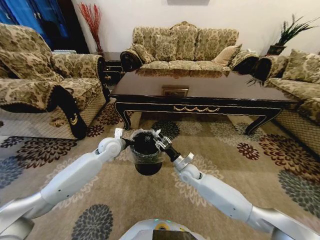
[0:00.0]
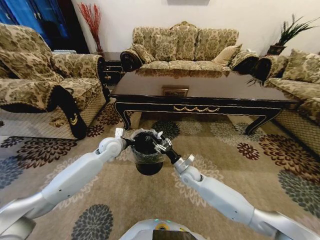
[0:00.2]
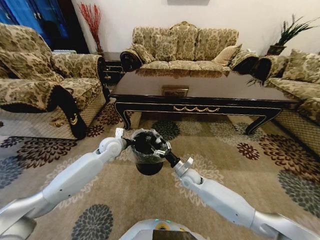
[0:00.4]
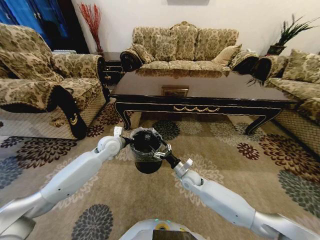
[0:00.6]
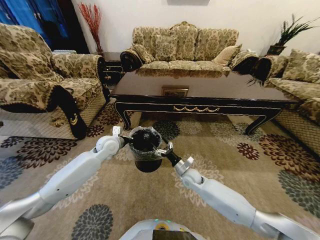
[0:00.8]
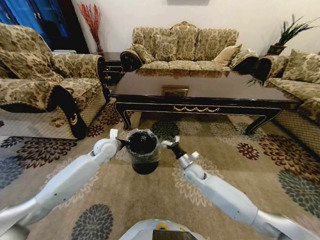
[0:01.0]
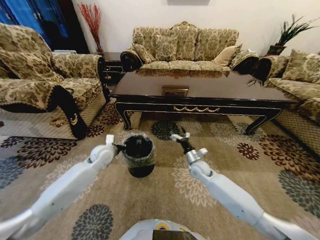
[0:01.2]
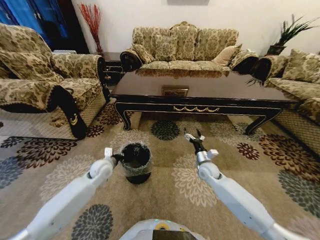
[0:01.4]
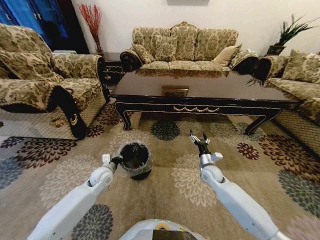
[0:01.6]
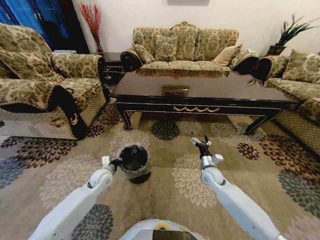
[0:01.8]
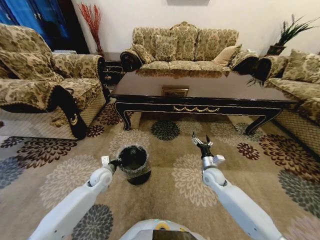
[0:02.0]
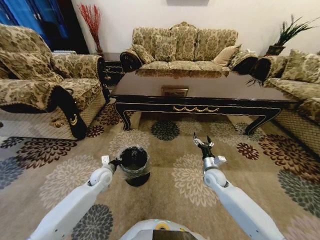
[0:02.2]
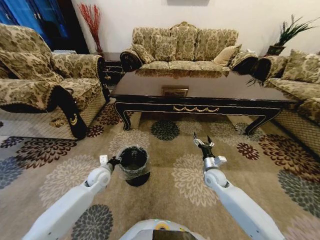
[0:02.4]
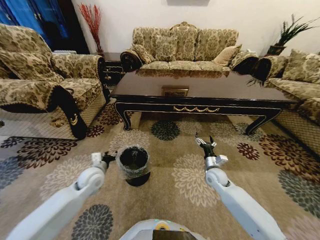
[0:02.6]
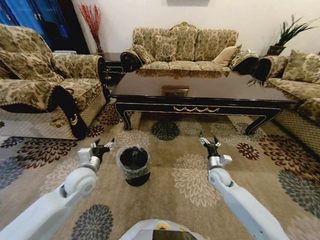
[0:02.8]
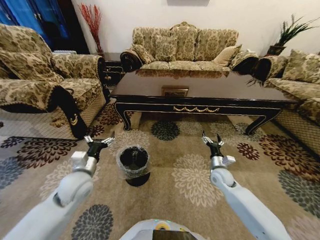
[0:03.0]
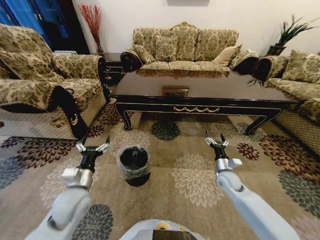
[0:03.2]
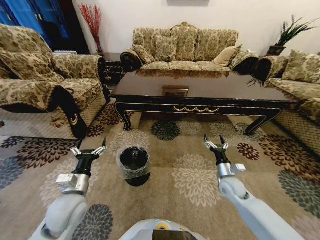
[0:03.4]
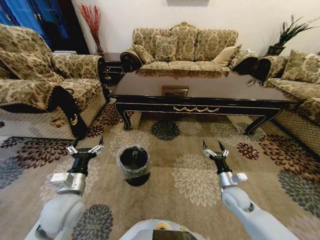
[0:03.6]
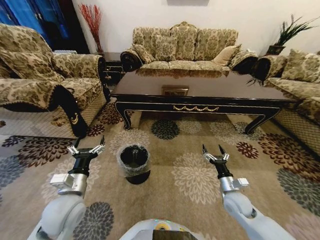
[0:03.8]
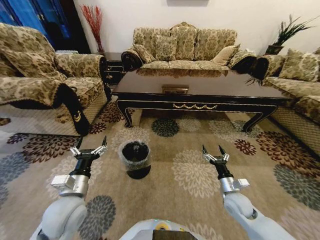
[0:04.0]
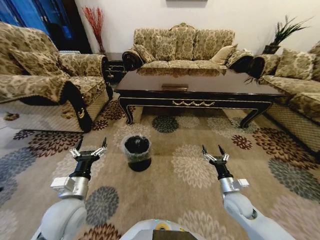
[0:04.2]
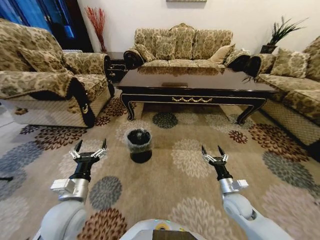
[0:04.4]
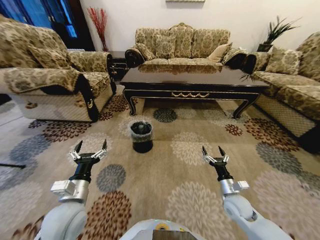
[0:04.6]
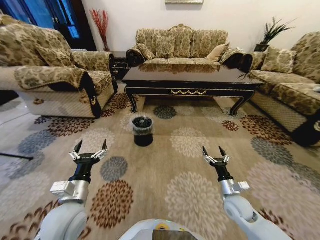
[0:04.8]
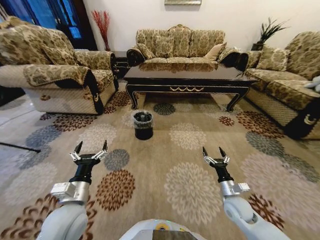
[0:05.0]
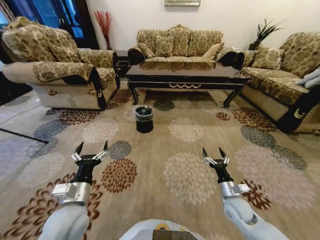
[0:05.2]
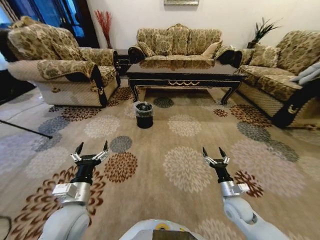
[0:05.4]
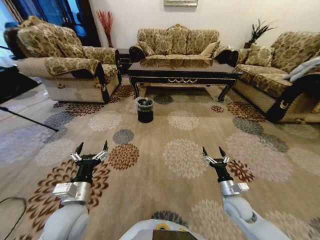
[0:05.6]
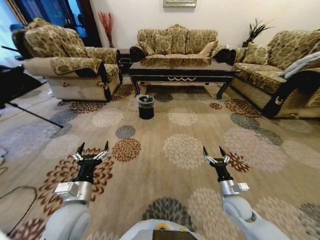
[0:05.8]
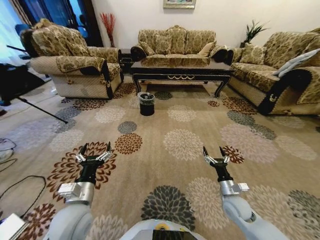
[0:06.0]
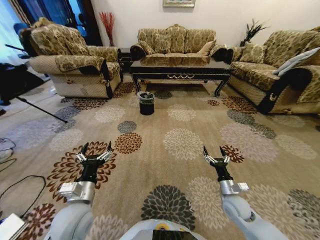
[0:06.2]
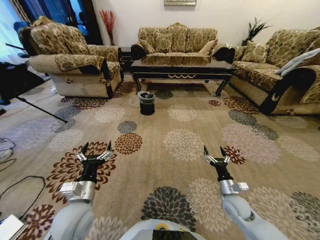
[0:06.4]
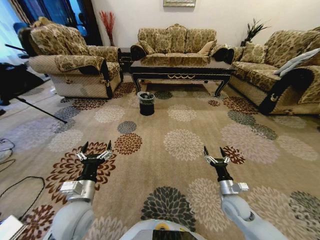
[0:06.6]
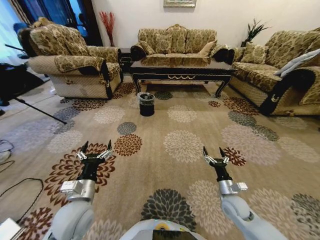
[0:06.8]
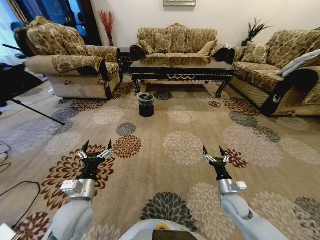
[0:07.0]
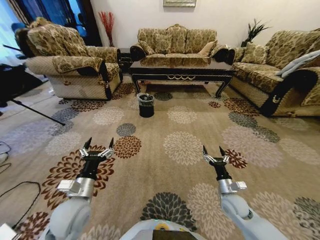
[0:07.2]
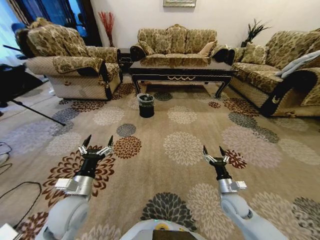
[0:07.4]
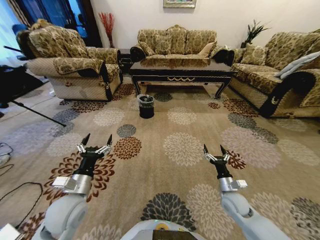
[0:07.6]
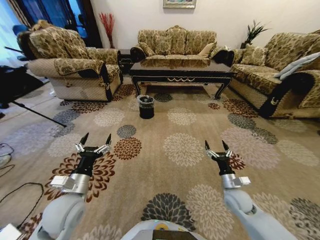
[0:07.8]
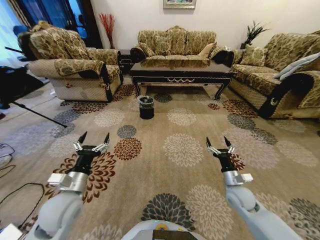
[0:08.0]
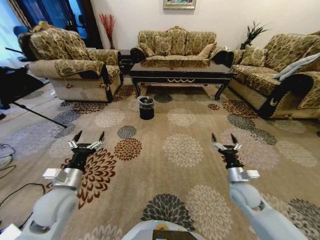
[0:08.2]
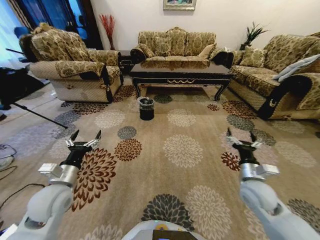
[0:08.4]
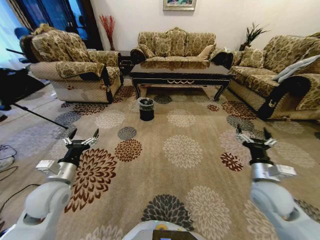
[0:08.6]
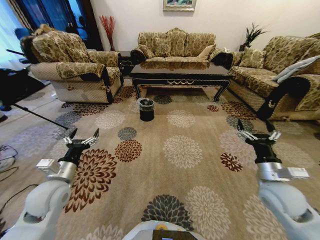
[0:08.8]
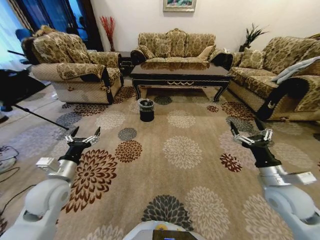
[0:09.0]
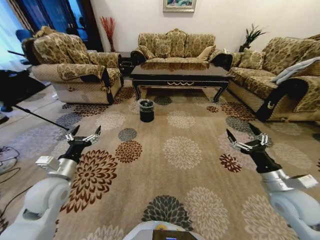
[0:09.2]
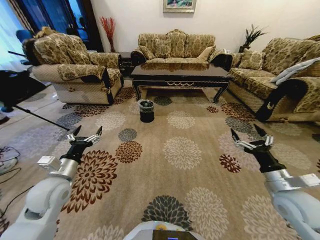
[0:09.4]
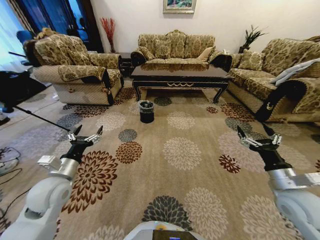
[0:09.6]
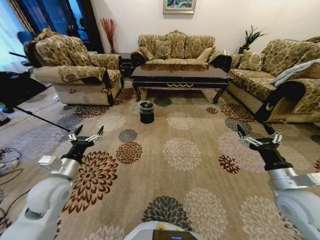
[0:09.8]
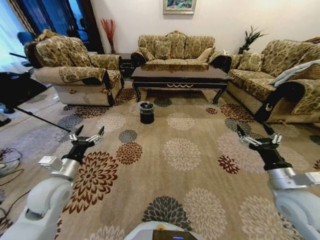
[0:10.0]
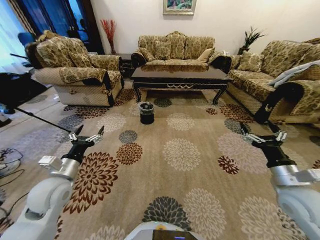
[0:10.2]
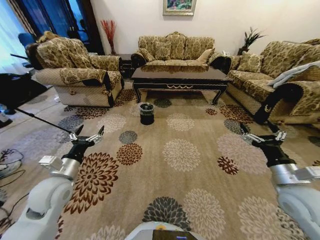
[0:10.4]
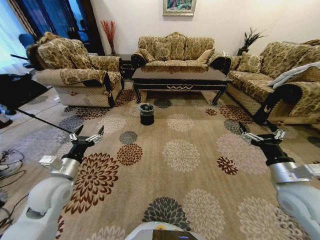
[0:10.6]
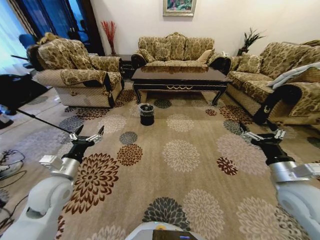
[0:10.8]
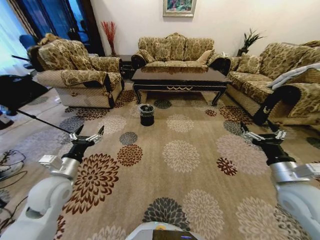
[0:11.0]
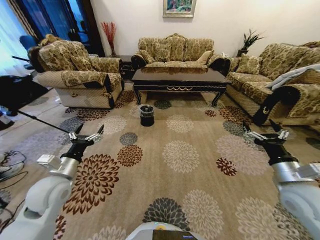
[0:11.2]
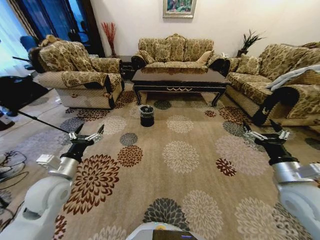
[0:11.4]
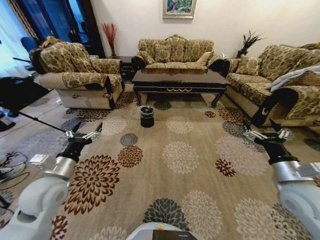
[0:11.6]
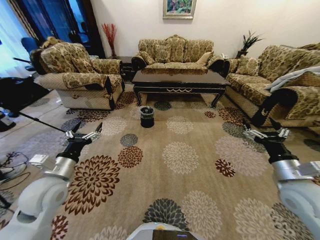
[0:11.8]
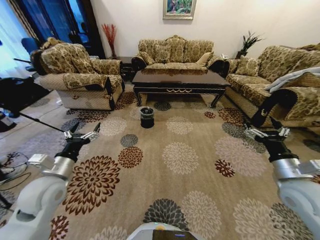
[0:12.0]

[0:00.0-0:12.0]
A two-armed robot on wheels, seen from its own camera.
Task of the whole recording: Move to the front of the table and pick up the trash from the floor, then place it into the trash bin.
0:00.0 to 0:01.6: The left gripper moves downward and backward, about 15 cm, while the right gripper is displaced to the right by roughly 10 cm, and opens up.
0:01.6 to 0:03.0: The left gripper shifts approximately 15 cm upward and backward, and opens.
0:03.0 to 0:04.4: Both grippers travel together backward, approximately 10 cm.
0:07.6 to 0:09.0: The right gripper travels upward and to the right by some 20 cm, while the left gripper moves to the left, about 5 cm.
